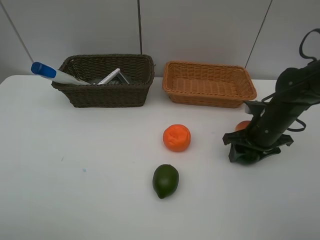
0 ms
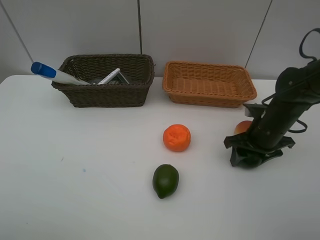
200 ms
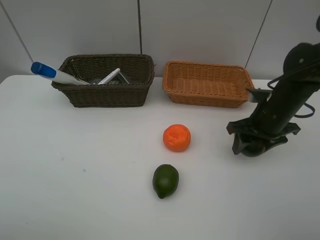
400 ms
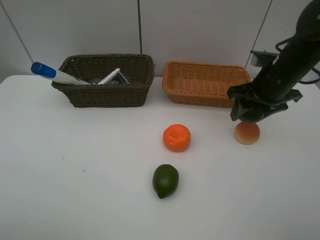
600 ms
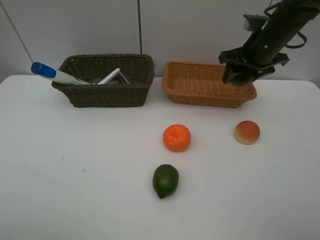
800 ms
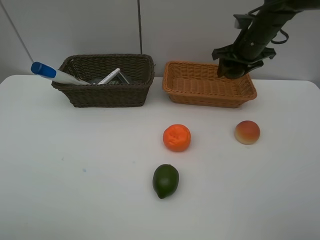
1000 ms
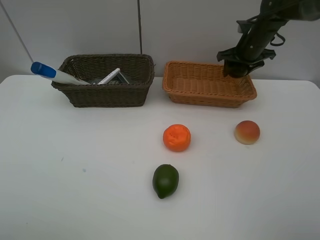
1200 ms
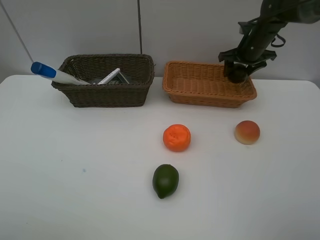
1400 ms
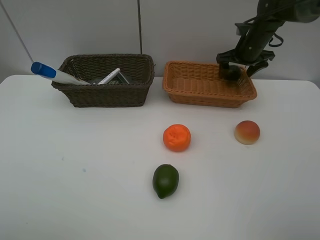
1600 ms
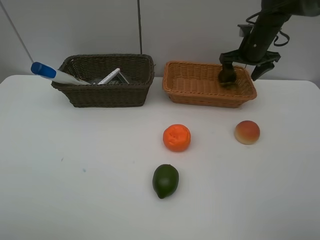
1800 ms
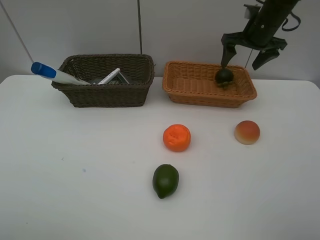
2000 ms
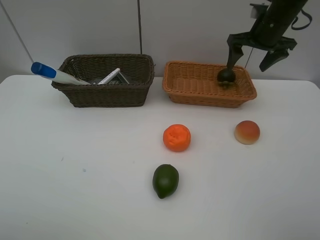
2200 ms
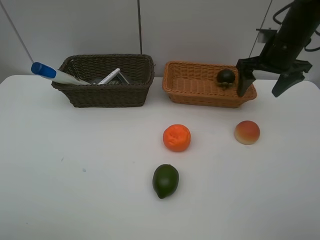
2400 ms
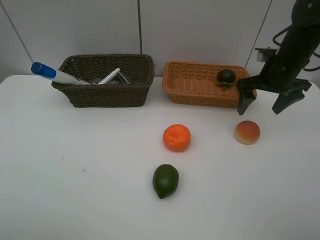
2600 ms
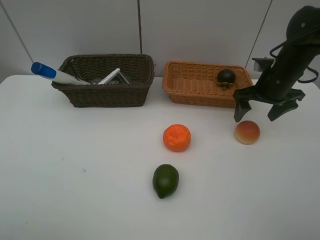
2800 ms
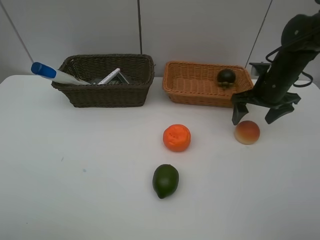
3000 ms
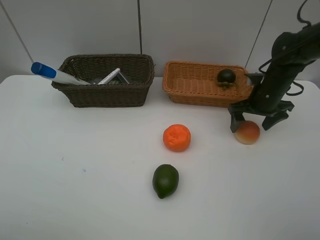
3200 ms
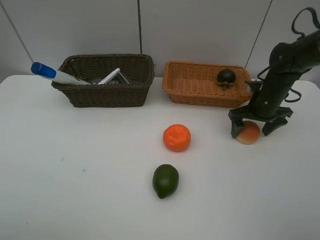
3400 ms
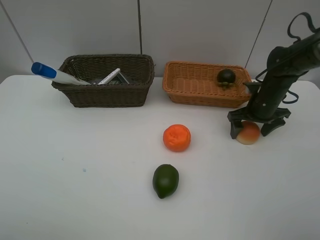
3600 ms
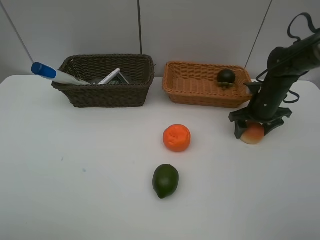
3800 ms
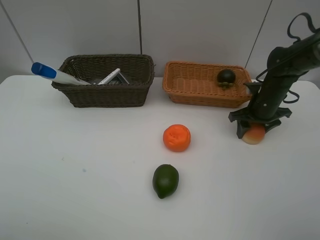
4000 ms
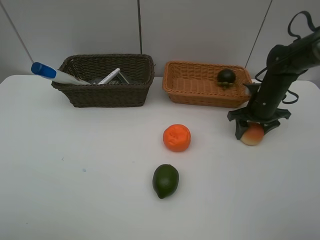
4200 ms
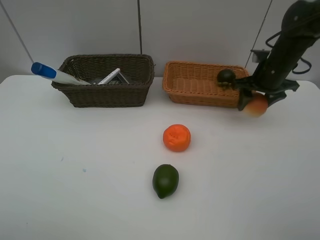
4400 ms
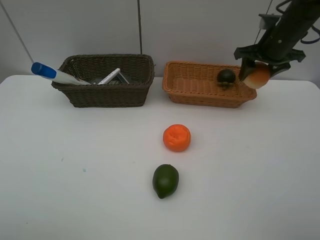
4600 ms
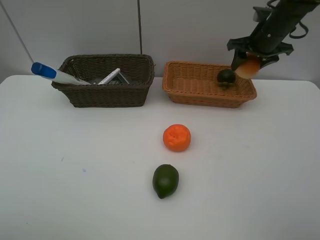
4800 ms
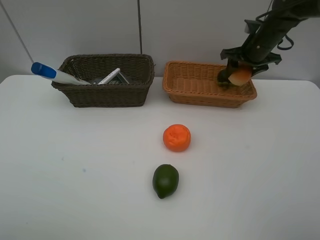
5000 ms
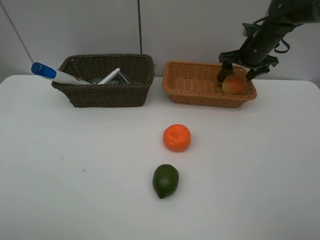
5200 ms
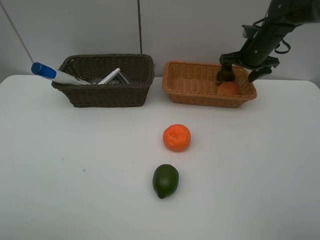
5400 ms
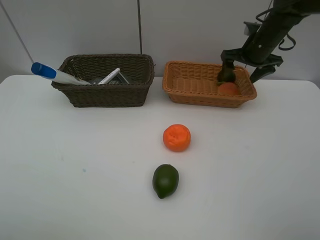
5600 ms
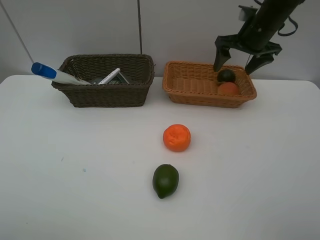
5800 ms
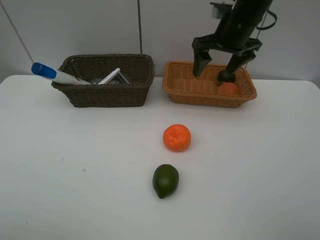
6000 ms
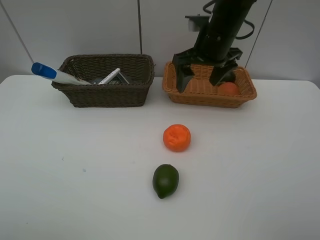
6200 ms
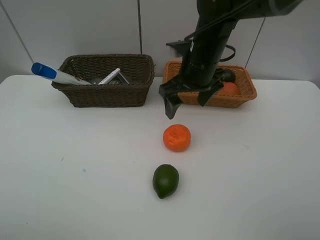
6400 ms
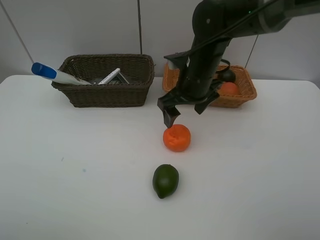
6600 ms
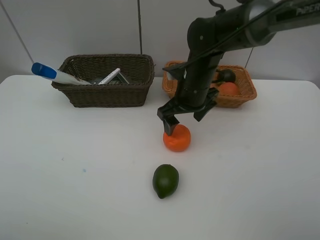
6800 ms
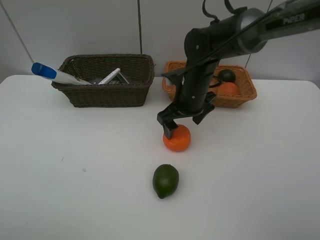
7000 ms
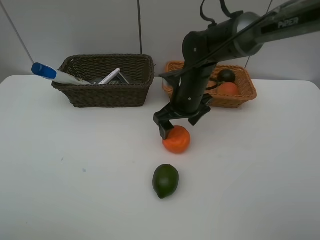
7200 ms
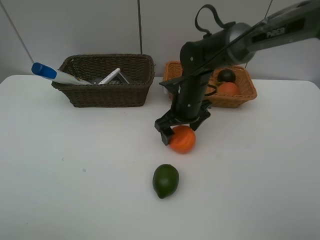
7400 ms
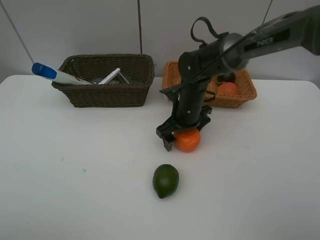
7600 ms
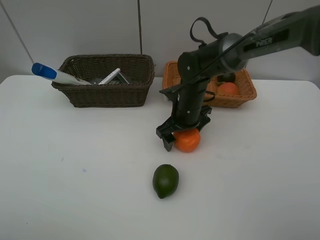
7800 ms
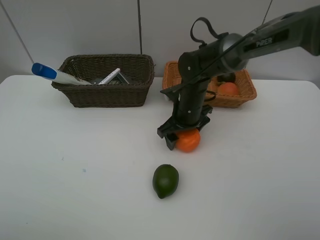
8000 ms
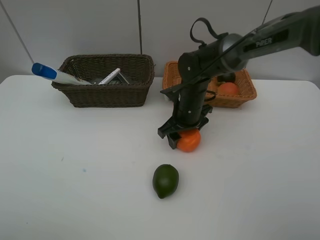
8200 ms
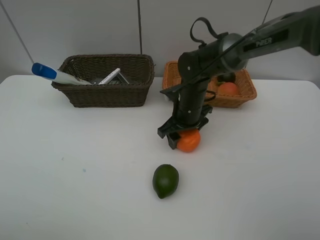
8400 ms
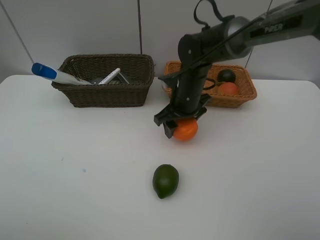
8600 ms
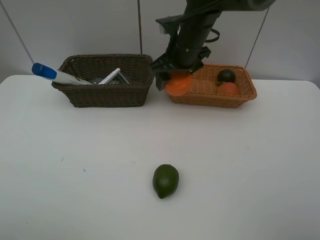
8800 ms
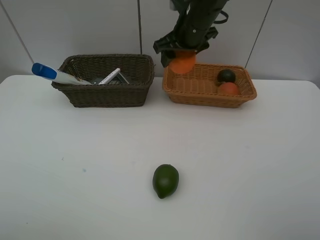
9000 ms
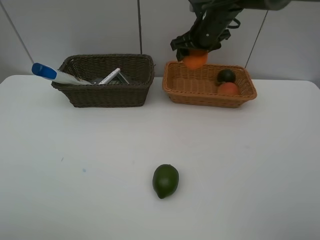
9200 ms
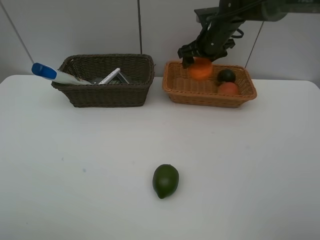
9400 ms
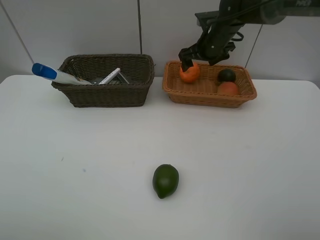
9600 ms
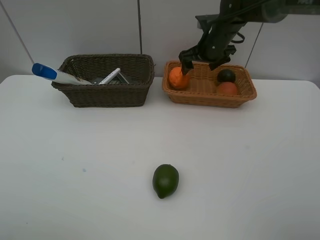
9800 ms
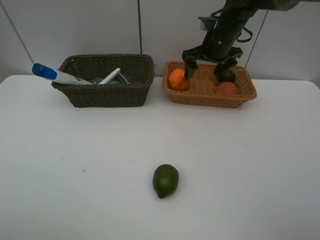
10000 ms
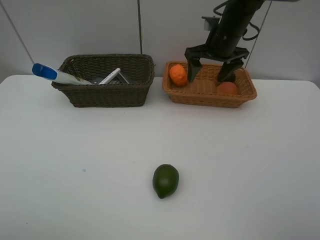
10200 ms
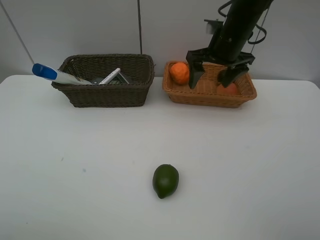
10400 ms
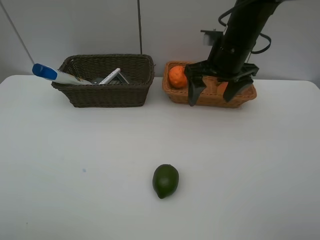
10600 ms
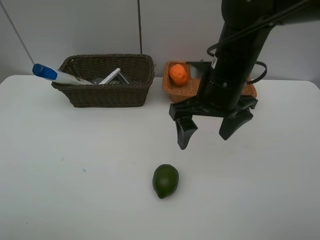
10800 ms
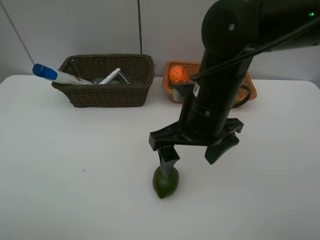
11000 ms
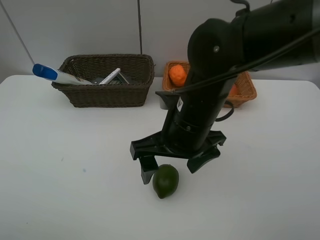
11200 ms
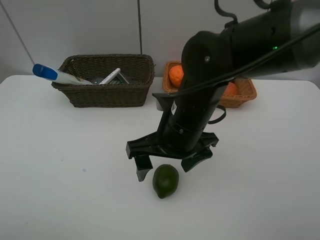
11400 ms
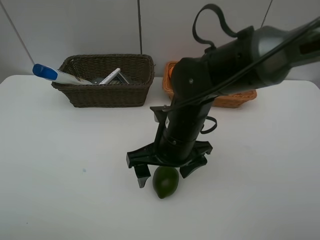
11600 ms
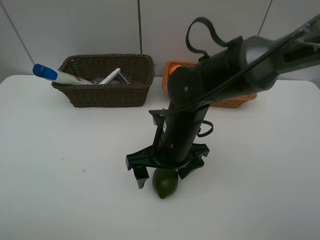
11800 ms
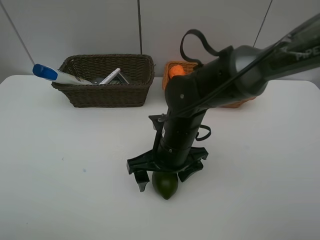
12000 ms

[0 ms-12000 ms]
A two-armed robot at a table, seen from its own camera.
Task of the whole recording: Place multiple objects separately in different baskets.
Step, 600 ms to 1600 ms: Place the mangosteen in the light basket with right gripper.
Step, 1800 ms to 4200 ms: Pick up egg yolk pastry with right gripper.
Step, 4400 ms to 5400 ms: Place the egg yolk pastry in the light basket with right gripper.
Step, 5600 ms to 8600 ms: Pick up the orange with right gripper.
Step, 8800 ms to 9600 ms: Place the orange in the light basket with right gripper.
0 ms to 1600 ms: The right gripper heads forward and upward, covering approximately 25 cm, and opens its fingers.
1600 ms to 3000 ms: The right gripper travels backward by about 15 cm.
3000 ms to 4400 ms: The right gripper ends up some 5 cm from where it was, and closes its fingers.
4400 ms to 6000 ms: The right gripper moves to the left and upward, about 15 cm, and opens its fingers.
6000 ms to 7600 ms: The right gripper heads downward and to the left, covering some 20 cm.
7600 ms to 9000 ms: The right gripper shifts approximately 20 cm upward and forward, and closes up.
9000 ms to 10400 ms: The right gripper moves to the right, some 5 cm, and opens.
10400 ms to 12000 ms: The right gripper shifts roughly 25 cm backward, downward and to the left.

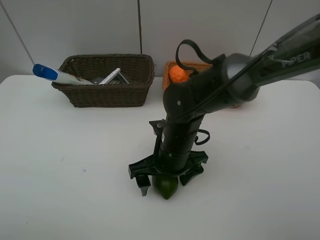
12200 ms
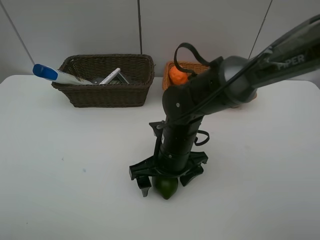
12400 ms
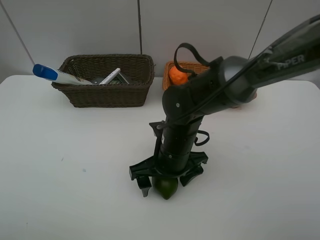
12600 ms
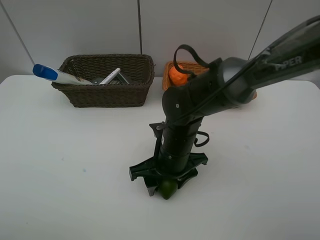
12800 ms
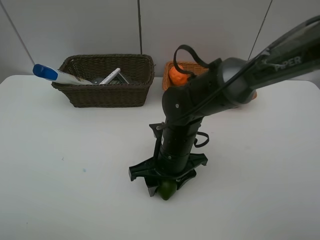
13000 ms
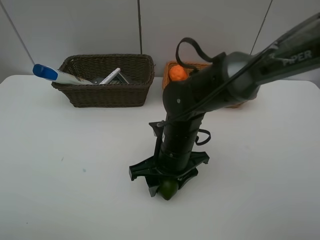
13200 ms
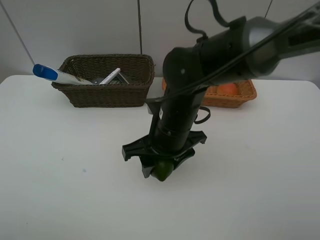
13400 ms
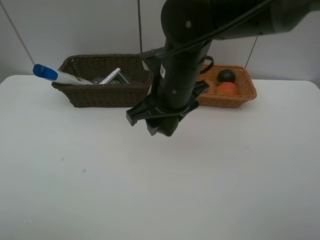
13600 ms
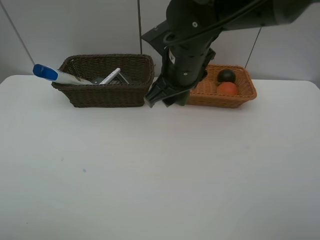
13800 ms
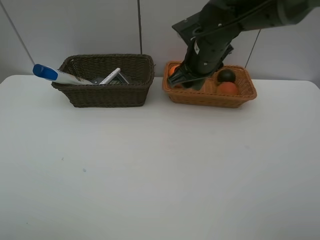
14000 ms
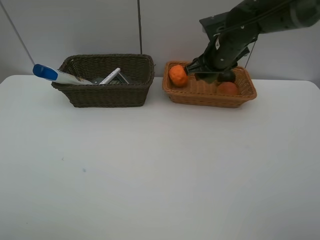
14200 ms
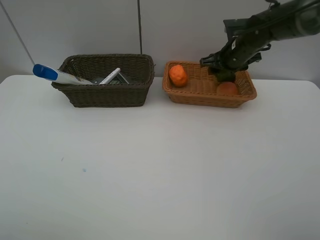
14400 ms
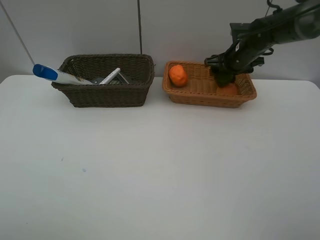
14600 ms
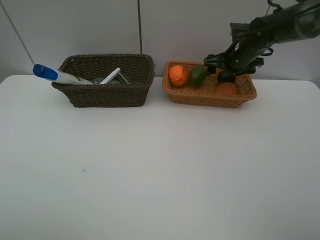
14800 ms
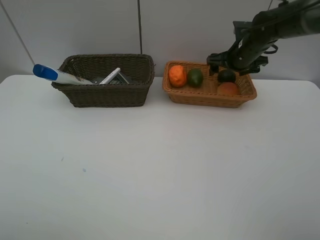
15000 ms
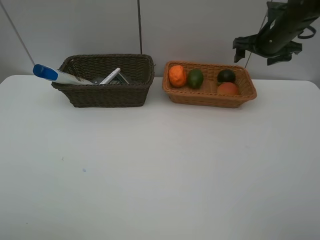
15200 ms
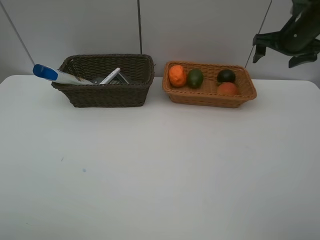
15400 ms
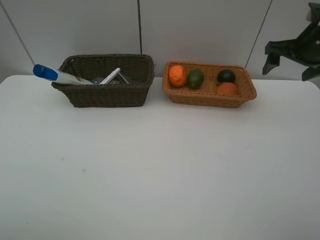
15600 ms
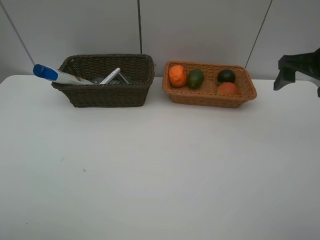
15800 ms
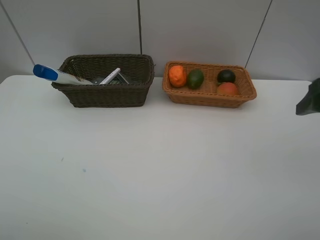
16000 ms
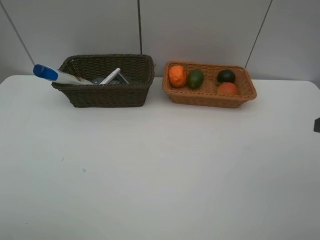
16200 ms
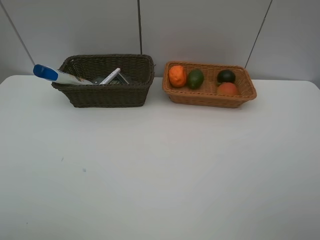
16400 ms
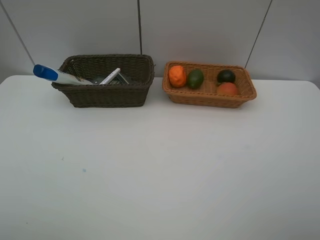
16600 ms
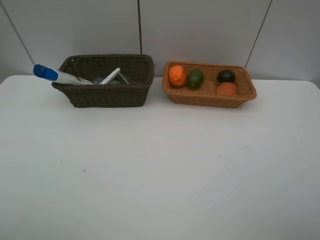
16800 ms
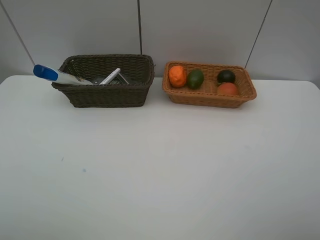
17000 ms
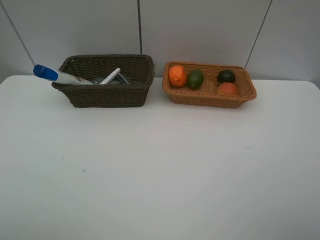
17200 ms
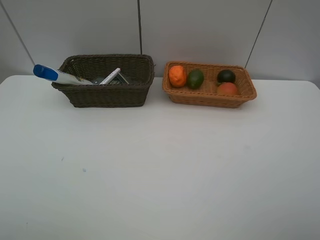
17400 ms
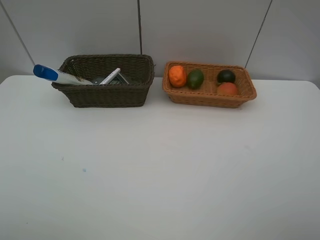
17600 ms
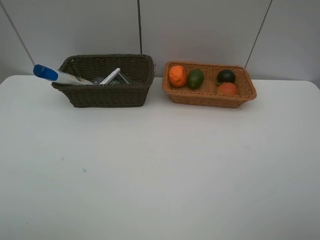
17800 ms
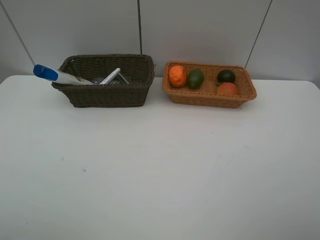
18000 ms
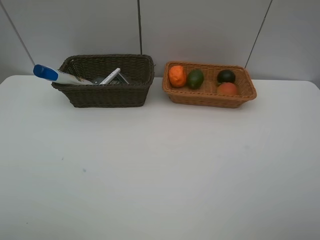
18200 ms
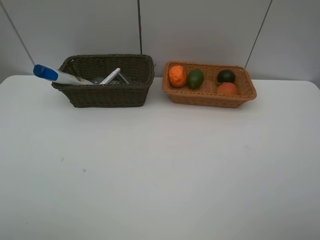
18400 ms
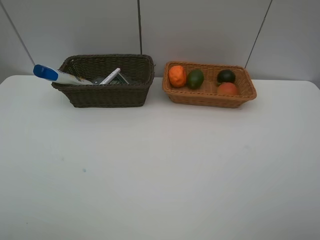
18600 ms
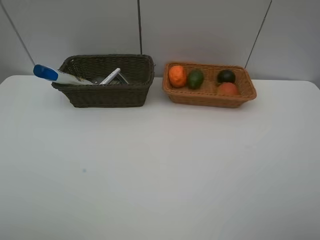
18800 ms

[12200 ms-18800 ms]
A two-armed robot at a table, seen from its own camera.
Task of the whole recording: Place multiple objects separately in different baskets.
Step, 13400 ms to 15000 ms: Place the lime in the light basket with right gripper.
12200 ms to 13800 ms: The right gripper travels upward and forward by roughly 15 cm, and closes up.
13800 ms to 15400 ms: The right gripper is displaced to the right and forward by roughly 30 cm, and opens up.
15400 ms to 17200 ms: The right gripper travels backward by about 40 cm.
17200 ms to 18800 ms: Both grippers stay put.

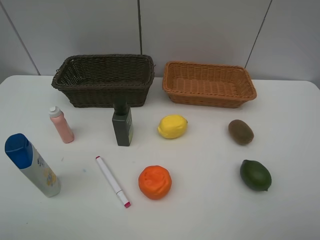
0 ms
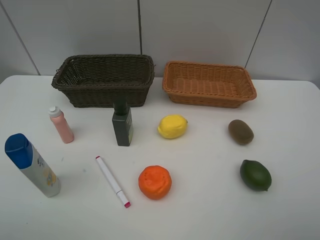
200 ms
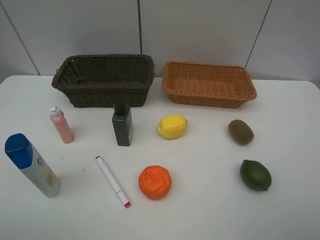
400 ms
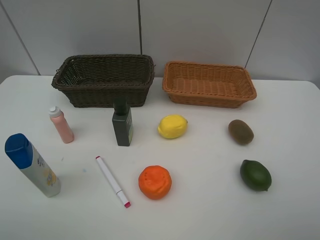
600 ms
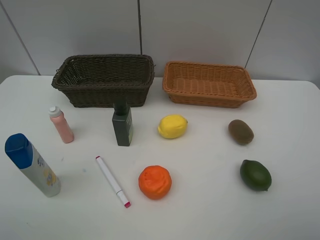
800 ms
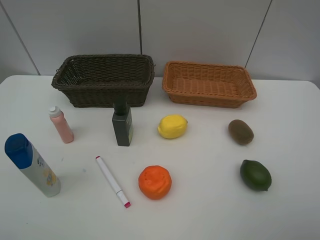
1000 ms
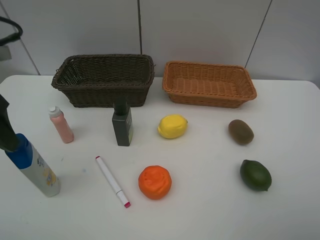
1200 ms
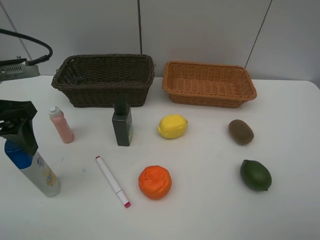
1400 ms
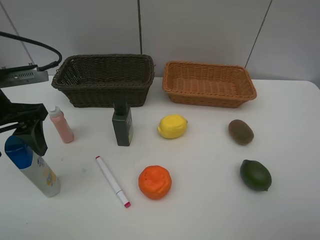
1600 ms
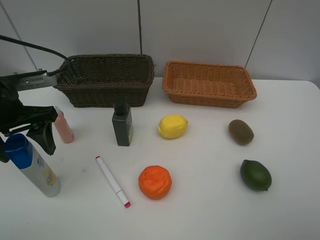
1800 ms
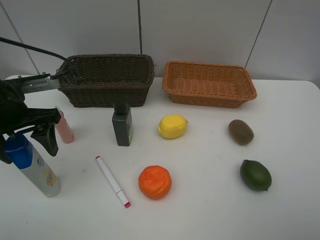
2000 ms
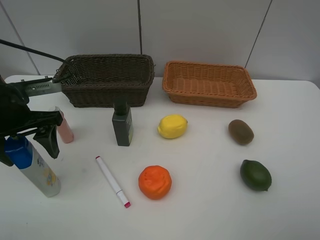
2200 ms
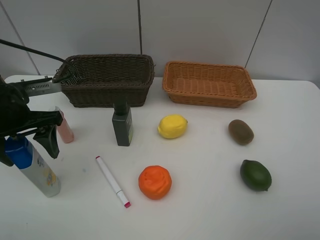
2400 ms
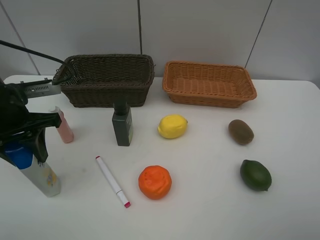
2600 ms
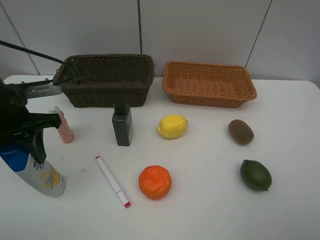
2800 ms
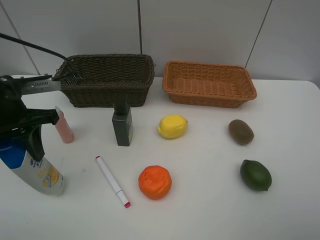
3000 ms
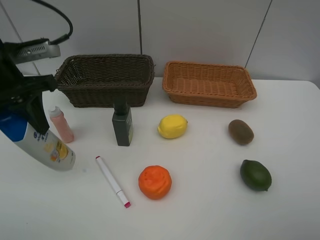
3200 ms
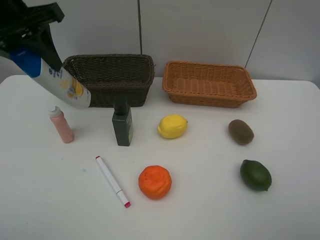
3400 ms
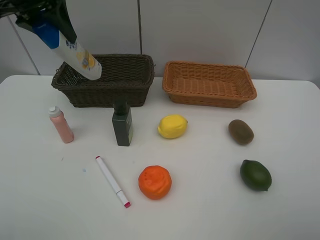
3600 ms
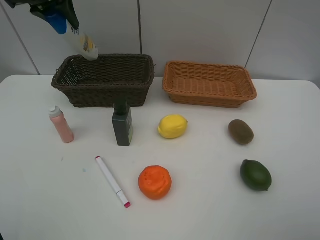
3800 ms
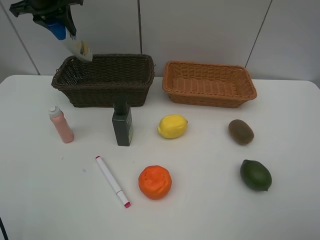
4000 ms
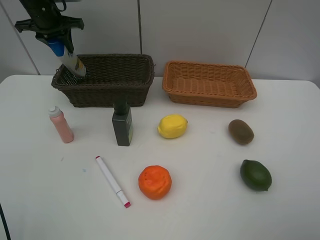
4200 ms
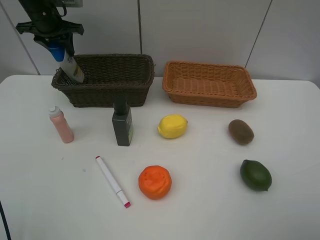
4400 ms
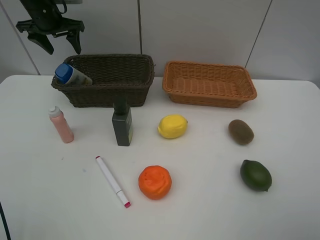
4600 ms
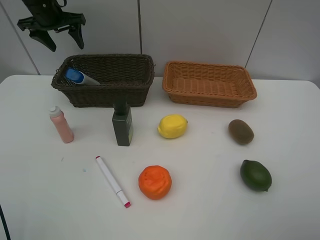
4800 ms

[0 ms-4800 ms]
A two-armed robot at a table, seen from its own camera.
Task of the whole recording: Place multiple objects separately in different baskets.
Step, 0 ms to 3000 ms: Pick up the shampoo with left gripper.
Step, 3200 ms to 4800 ms: Place the shampoo in the dark basket with left gripper.
0 ms to 1600 ms: The left gripper shifts roughly 25 cm forward.
1600 ms to 3200 ms: The left gripper changes place by roughly 5 cm, and closes.
3200 ms to 4800 ms: The left gripper shifts roughly 25 cm forward, and opens its fingers.
